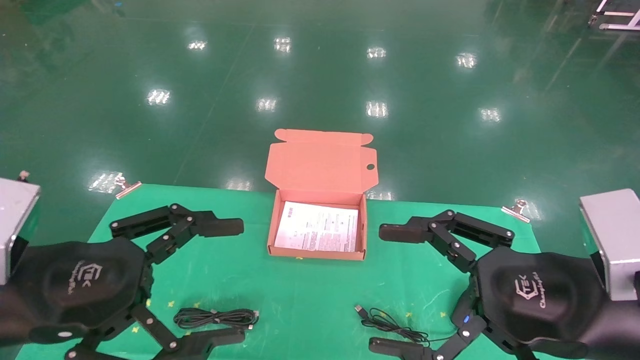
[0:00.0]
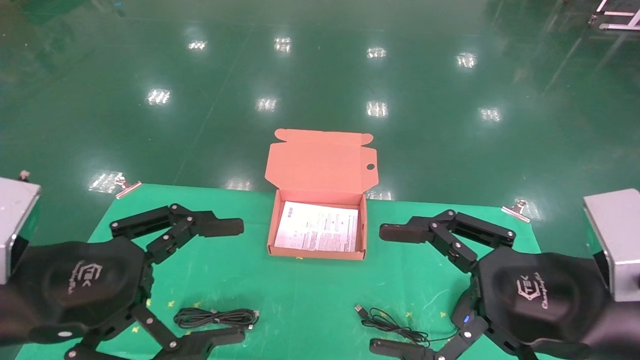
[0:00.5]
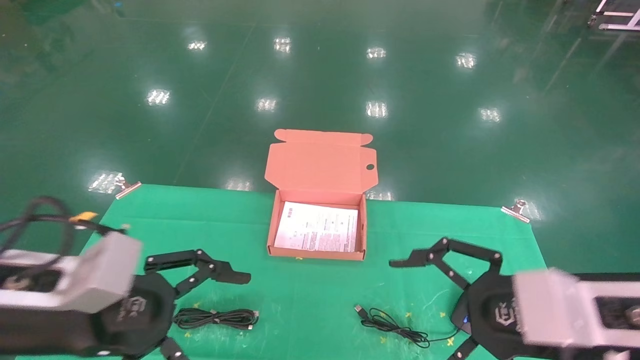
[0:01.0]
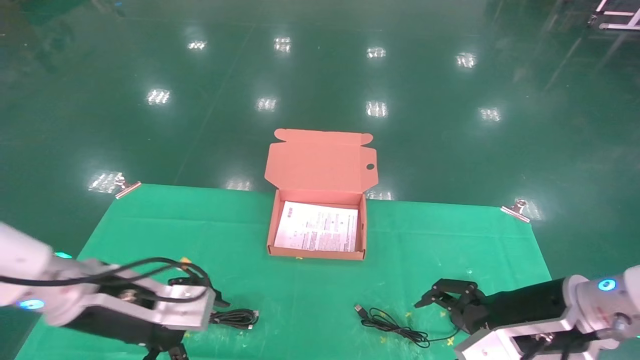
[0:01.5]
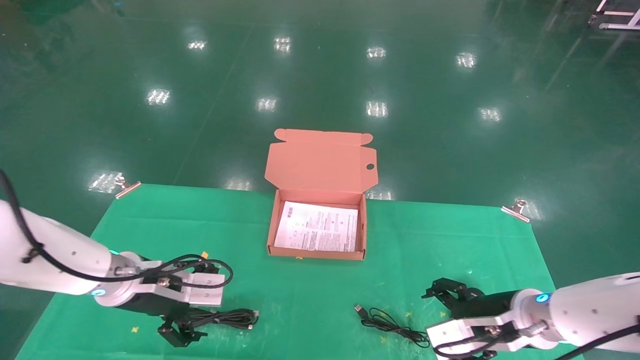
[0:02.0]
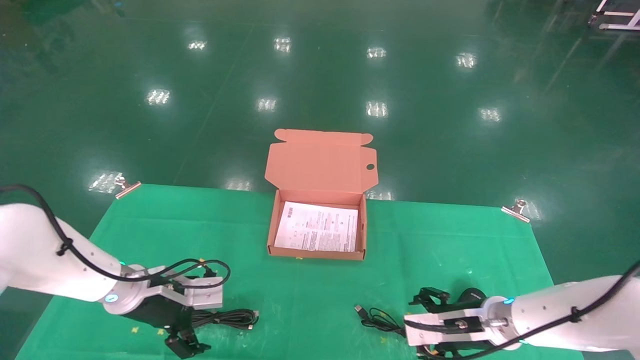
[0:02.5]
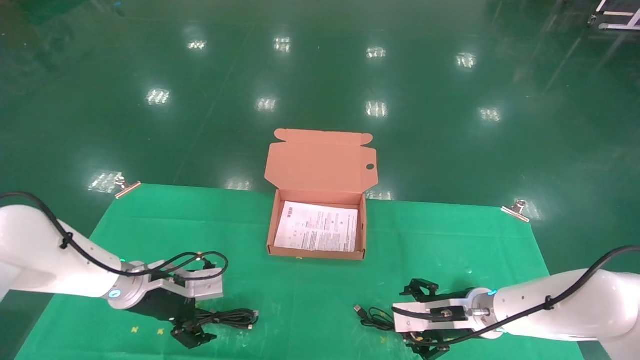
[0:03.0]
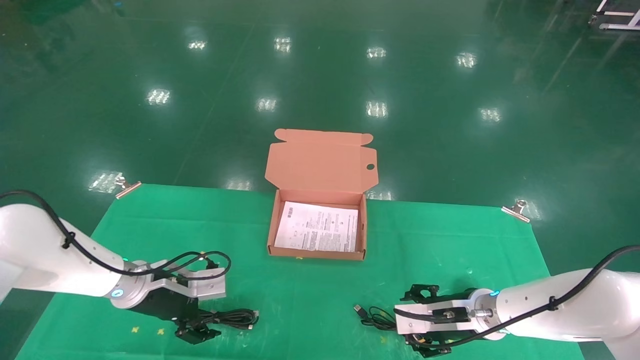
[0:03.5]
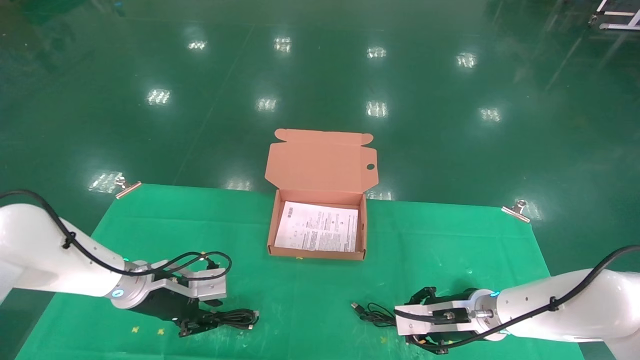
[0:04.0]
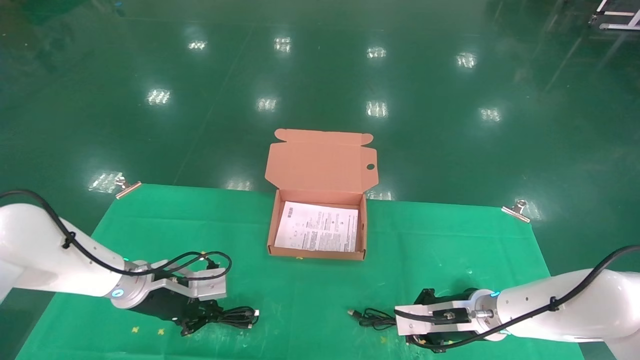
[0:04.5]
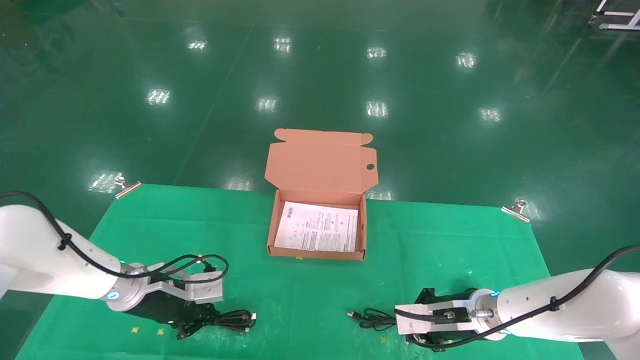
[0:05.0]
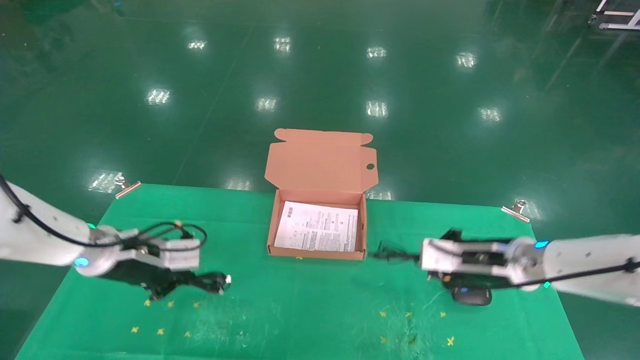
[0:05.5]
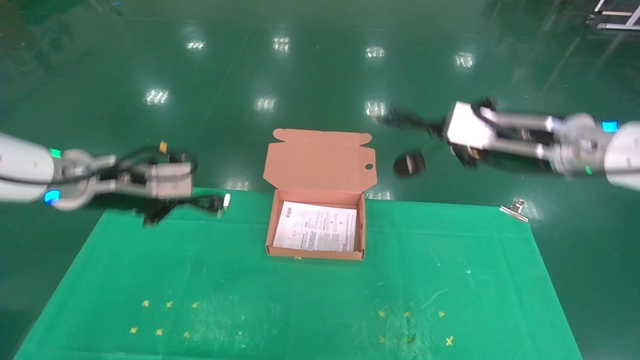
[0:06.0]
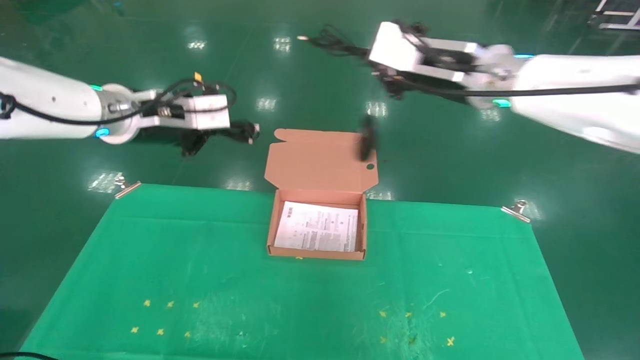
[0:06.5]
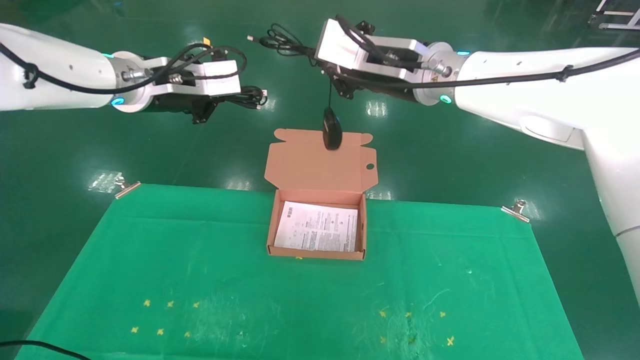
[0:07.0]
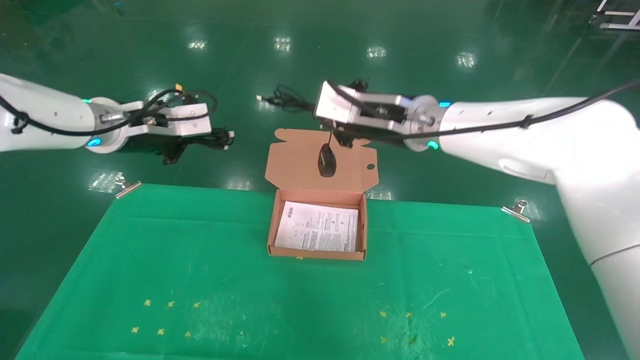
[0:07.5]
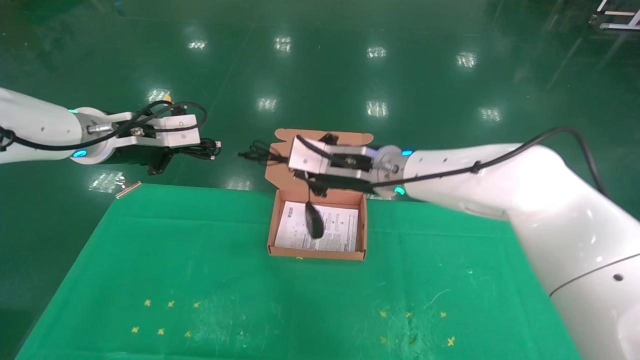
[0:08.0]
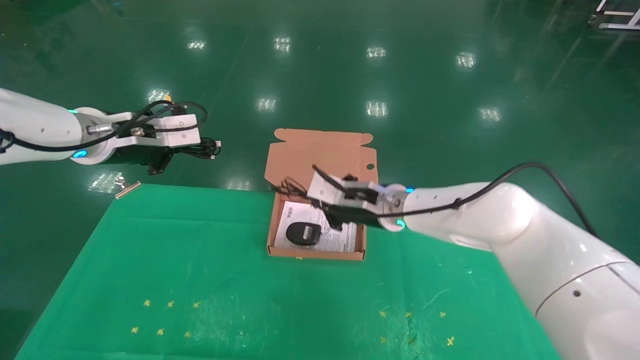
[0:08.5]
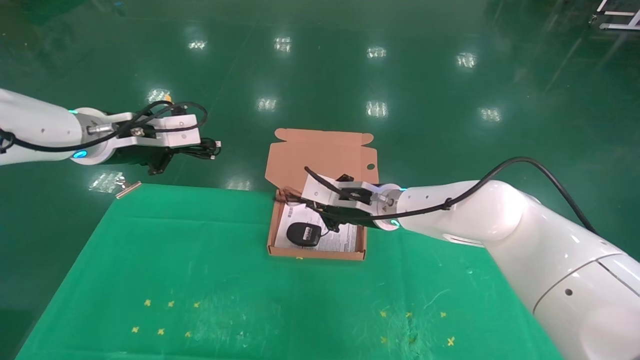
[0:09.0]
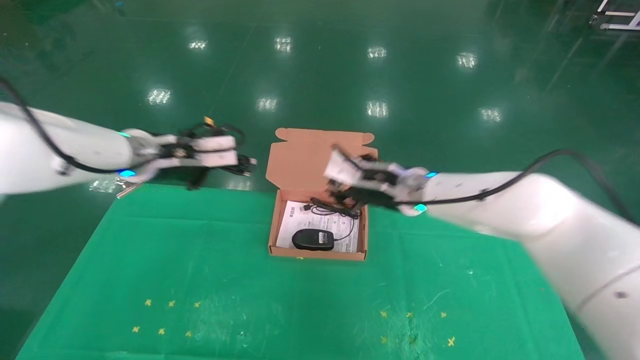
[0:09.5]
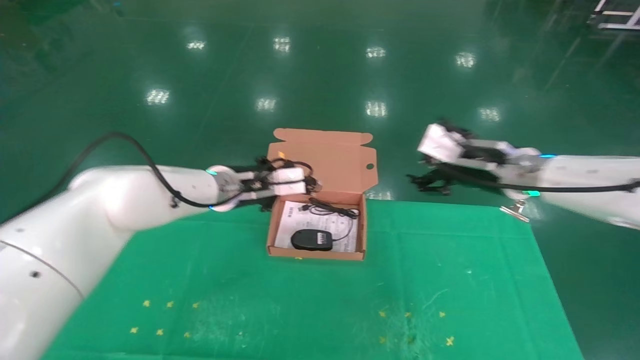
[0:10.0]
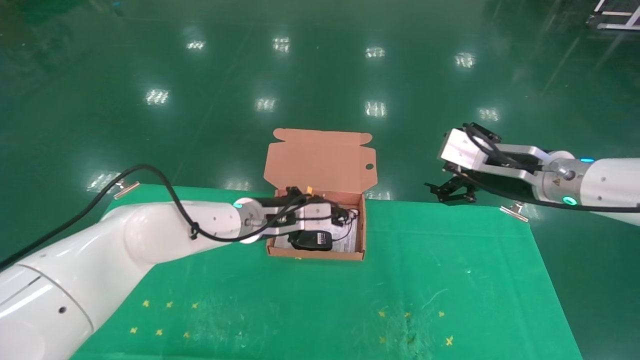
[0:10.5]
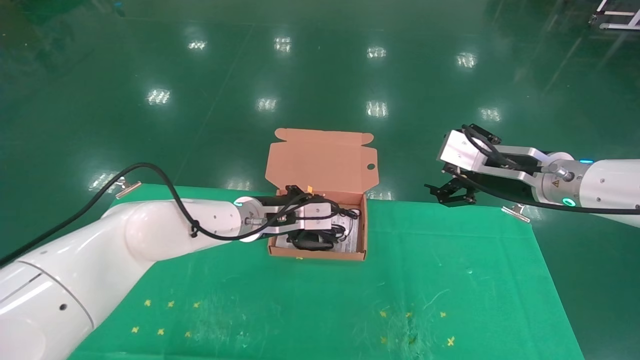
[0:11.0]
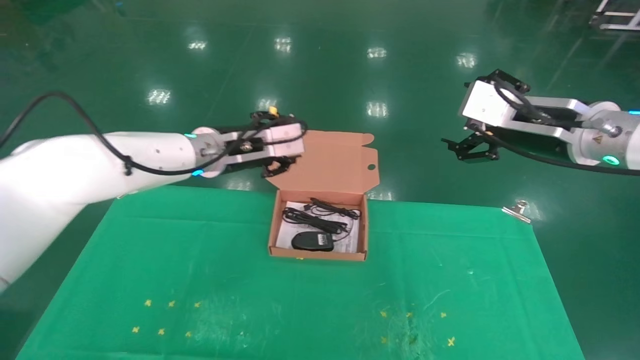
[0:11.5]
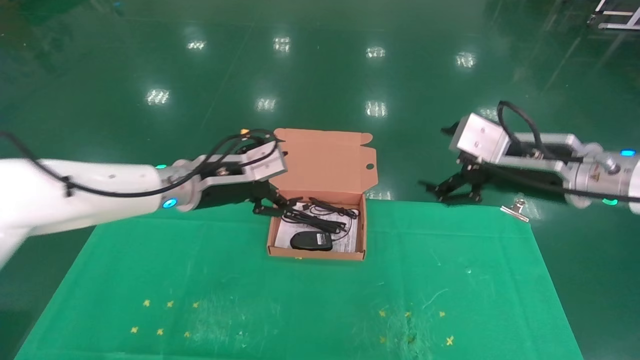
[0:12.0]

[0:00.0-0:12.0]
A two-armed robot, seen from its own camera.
Task of the whole recording: grasp data cable left put into box grasp mouse right put into box.
Step, 0:01.0 to 0:05.0: Grab and pick up both the mouse and power cord from the accessory packaging area at the same time.
Step, 0:05.5 to 0:11.0: Place the mouse and power cord into the box.
0:00.0 to 0:02.0: Both grippers travel together forward and downward, about 20 cm.
0:02.0 to 0:04.0: The right gripper heads forward, covering roughly 5 cm, and closes its fingers; the left gripper changes place by roughly 5 cm, and closes its fingers.
0:04.0 to 0:06.0: The two grippers go about 25 cm upward. The left gripper closes its fingers, while the right gripper closes.
0:06.0 to 0:08.0: The right gripper moves to the left, roughly 20 cm.
0:08.0 to 0:10.0: The left gripper moves to the right, downward and forward, roughly 20 cm. The right gripper heads to the right, covering roughly 20 cm, and opens up.
0:10.0 to 0:12.0: The two grippers go some 5 cm backward. The left gripper opens.
